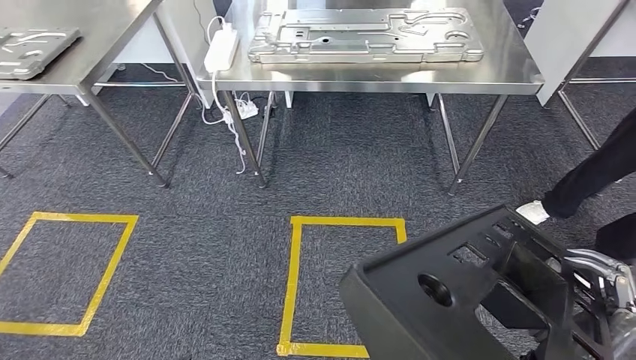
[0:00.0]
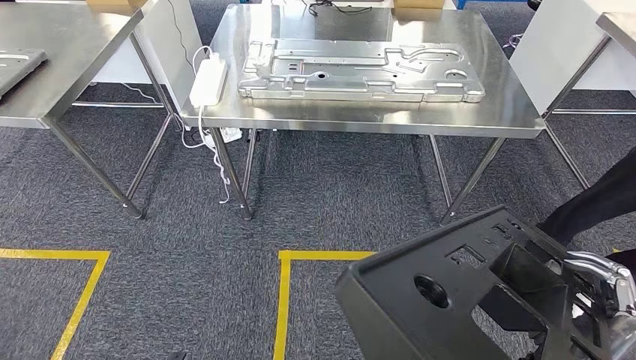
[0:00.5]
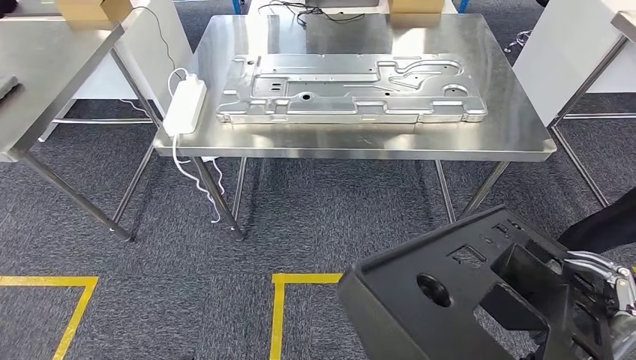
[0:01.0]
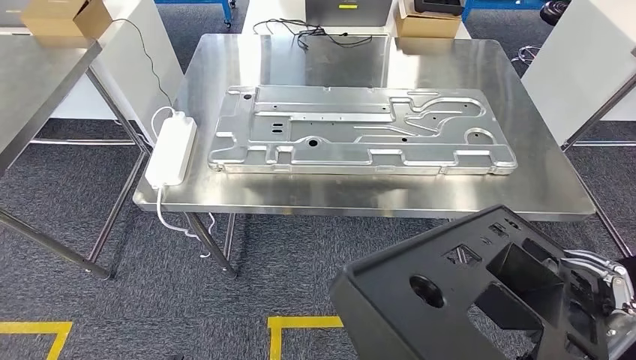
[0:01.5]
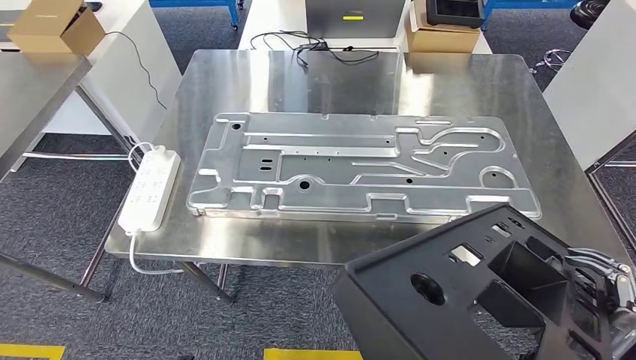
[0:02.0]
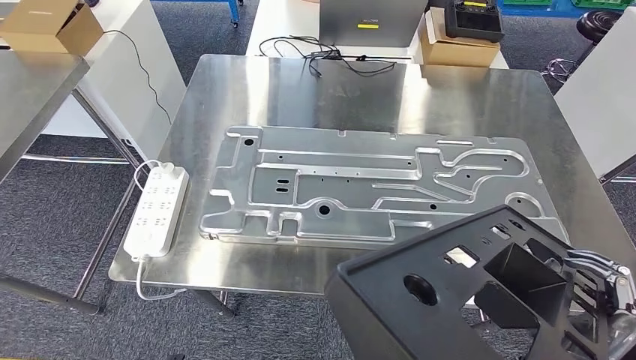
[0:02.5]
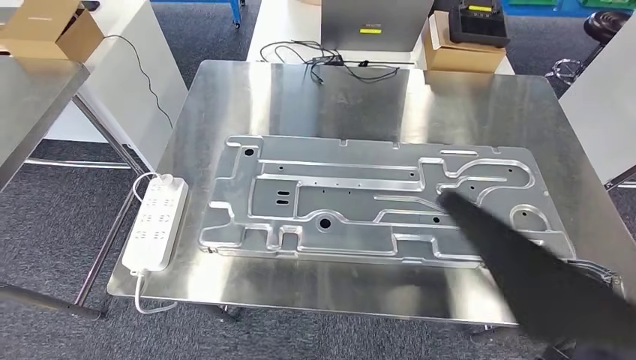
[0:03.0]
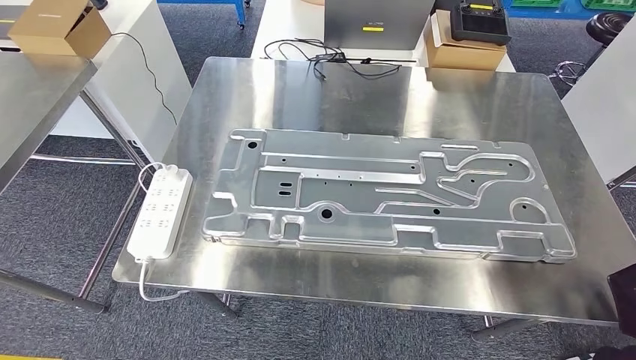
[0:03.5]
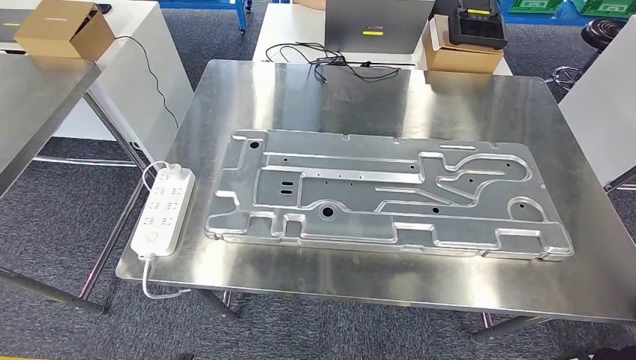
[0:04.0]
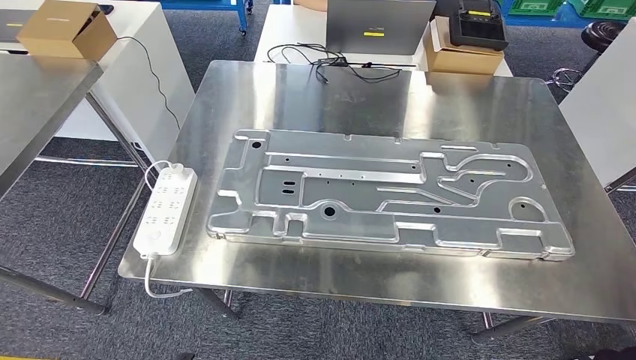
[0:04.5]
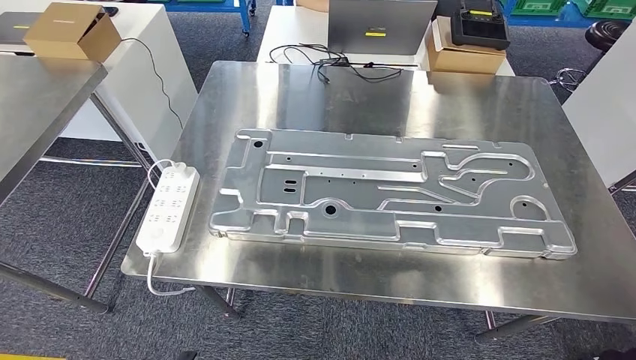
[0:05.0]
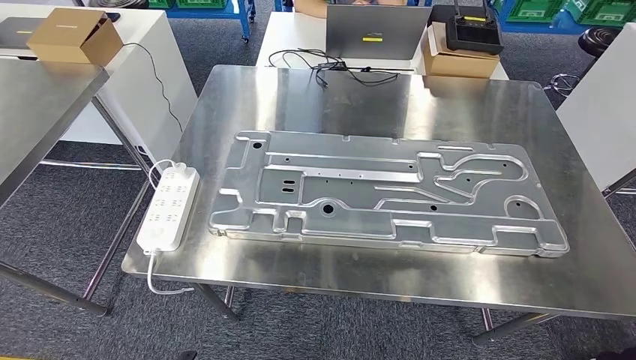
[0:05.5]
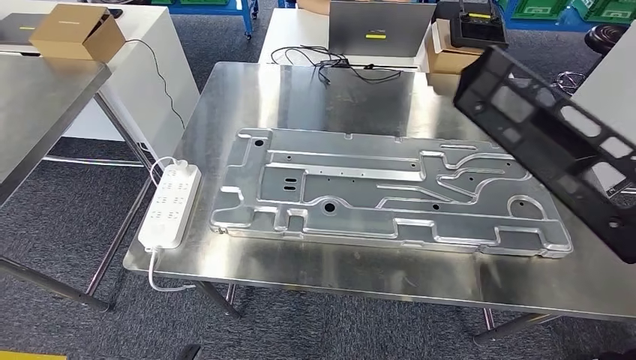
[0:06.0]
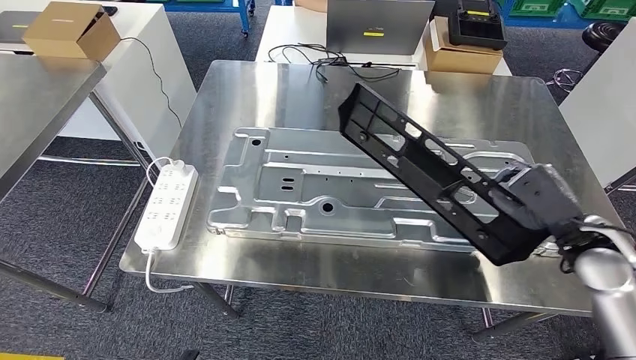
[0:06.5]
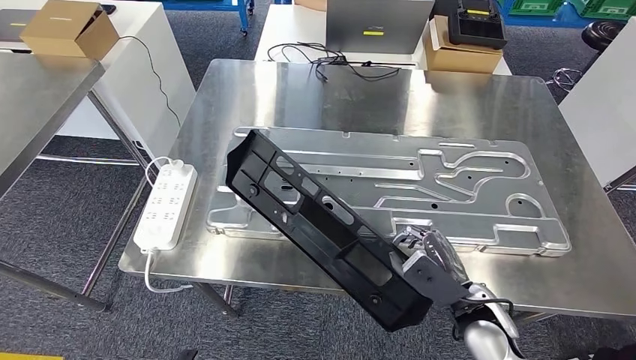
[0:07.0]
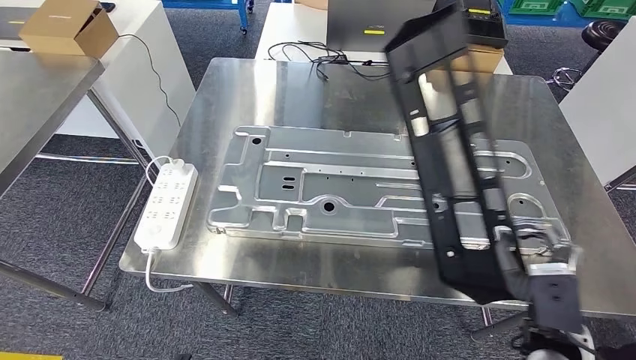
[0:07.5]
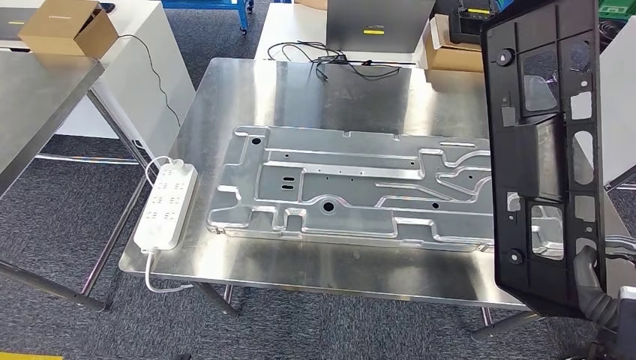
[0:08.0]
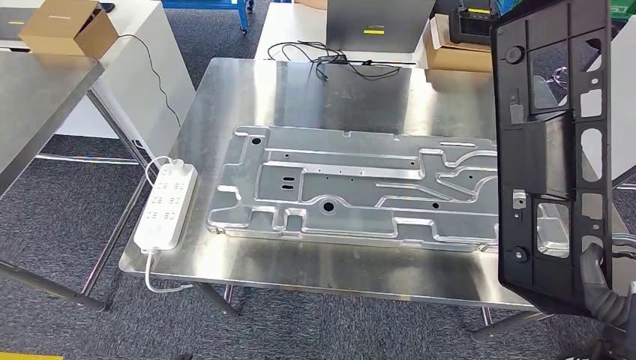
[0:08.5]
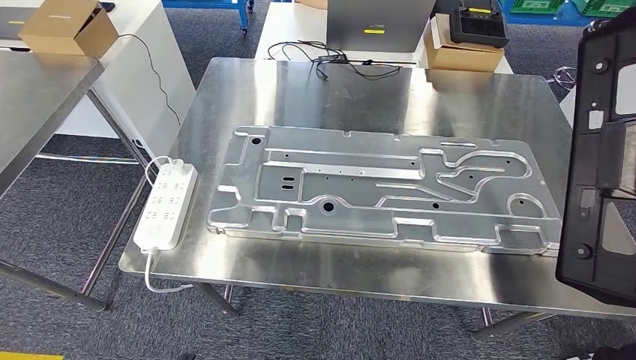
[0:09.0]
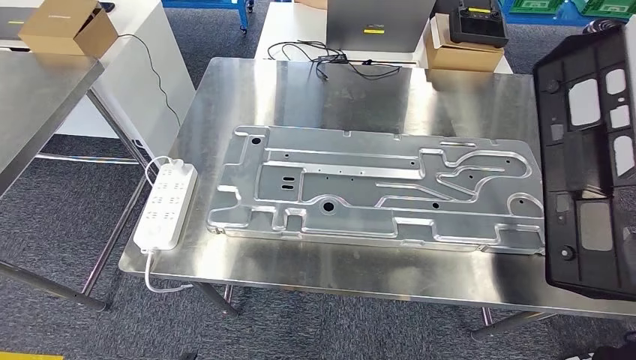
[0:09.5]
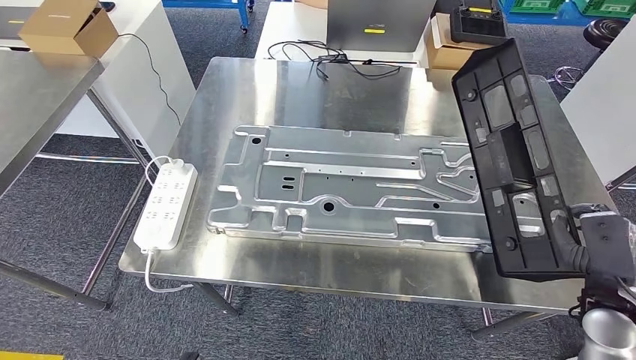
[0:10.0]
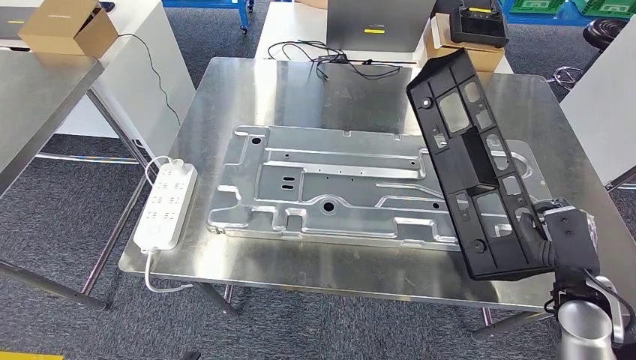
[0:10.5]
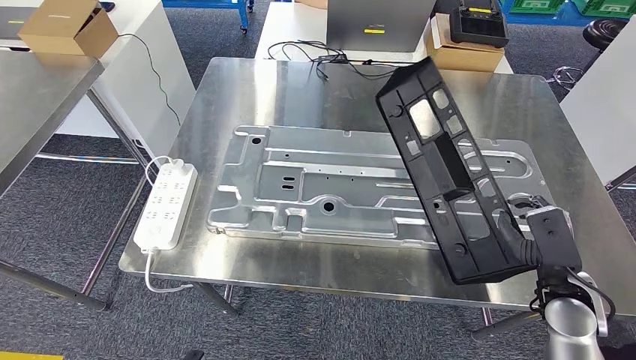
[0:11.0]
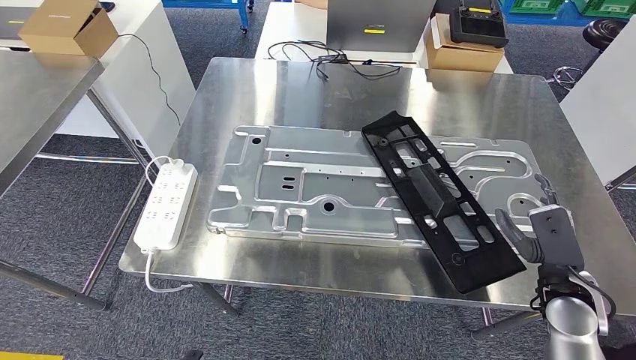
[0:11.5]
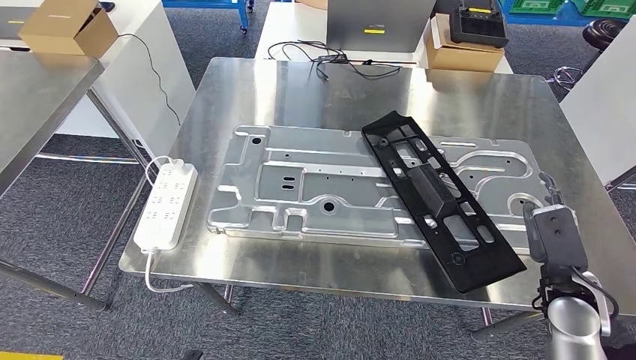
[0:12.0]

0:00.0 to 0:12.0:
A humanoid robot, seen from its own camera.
Step, 0:00.0 to 0:03.0: Move the large material to the workbench.
0:08.0 to 0:10.0: The right hand shifts approximately 10 cm forward.
0:10.0 to 0:12.0: The right hand heads to the left, covering roughly 5 cm.

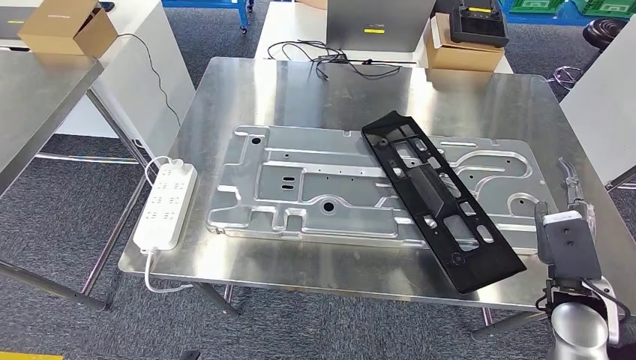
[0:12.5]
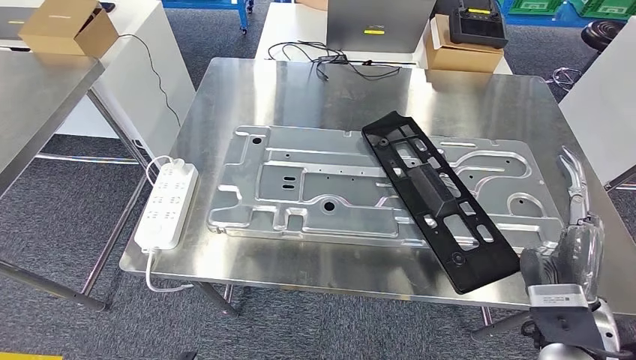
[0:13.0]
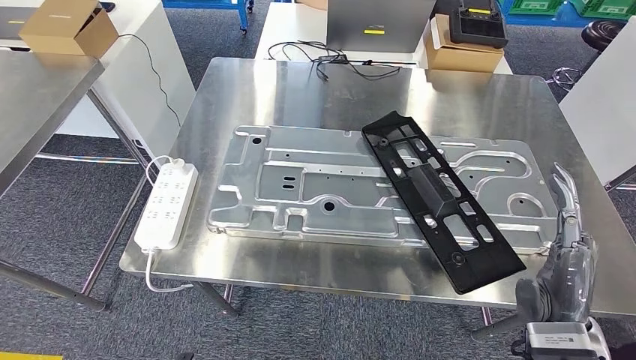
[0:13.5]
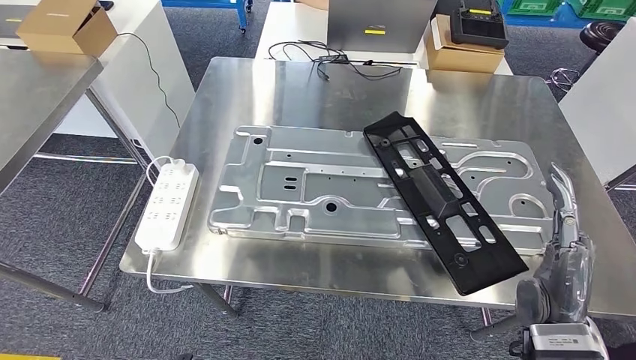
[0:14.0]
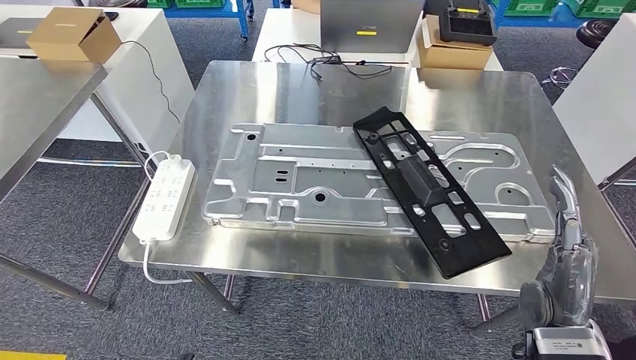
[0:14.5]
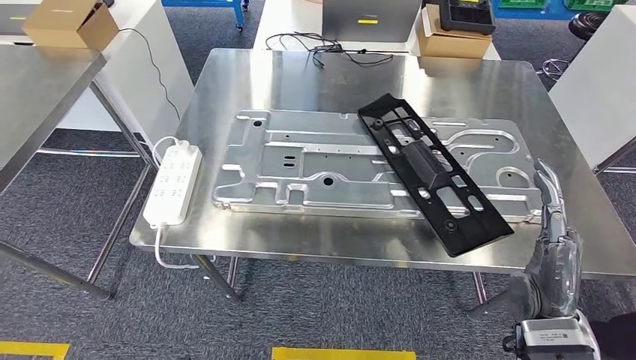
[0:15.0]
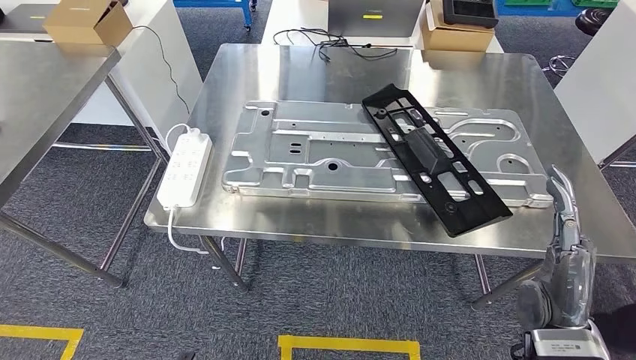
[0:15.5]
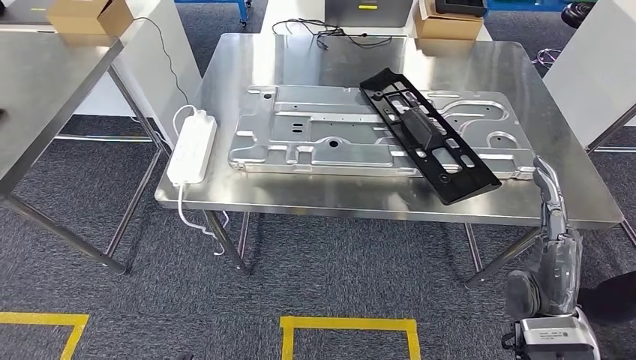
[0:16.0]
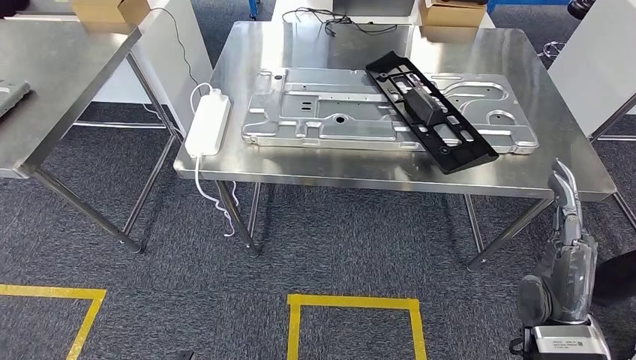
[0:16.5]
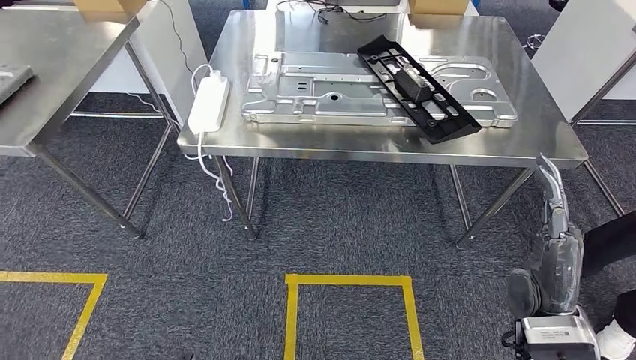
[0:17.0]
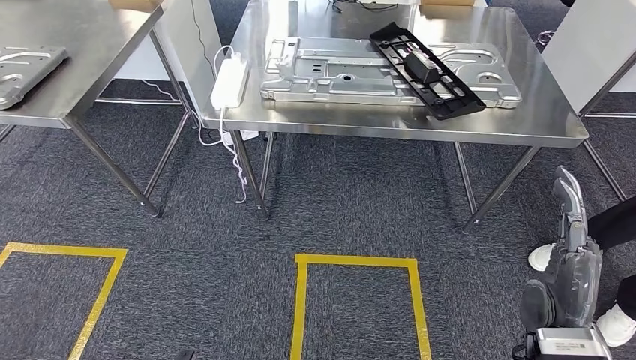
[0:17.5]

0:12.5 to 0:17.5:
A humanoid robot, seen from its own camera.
Step, 0:15.0 to 0:17.5: Move to the initial position of the shelf.

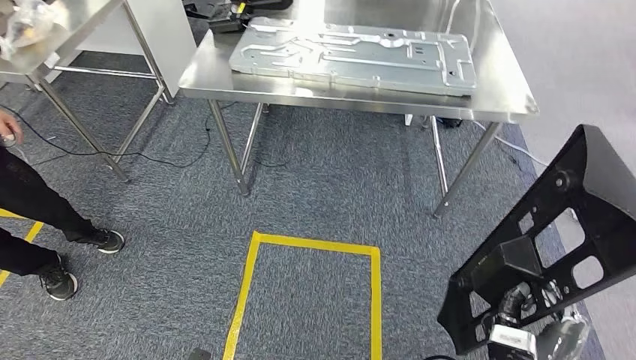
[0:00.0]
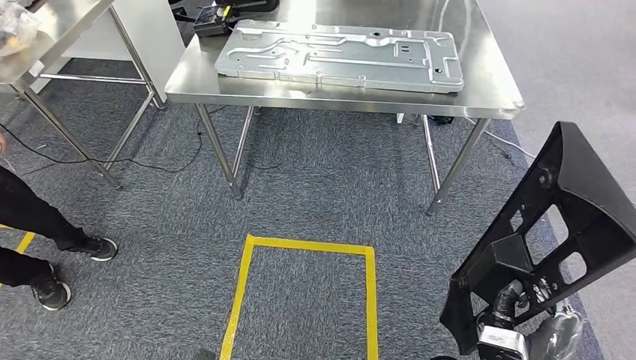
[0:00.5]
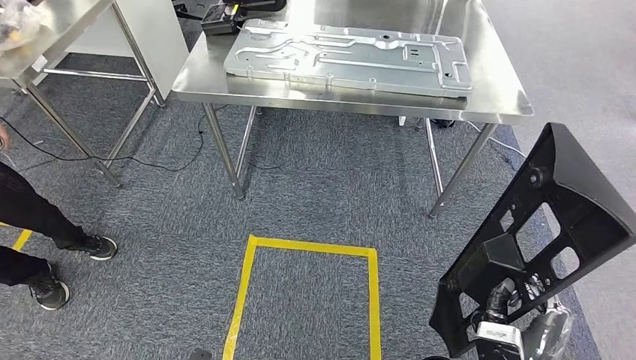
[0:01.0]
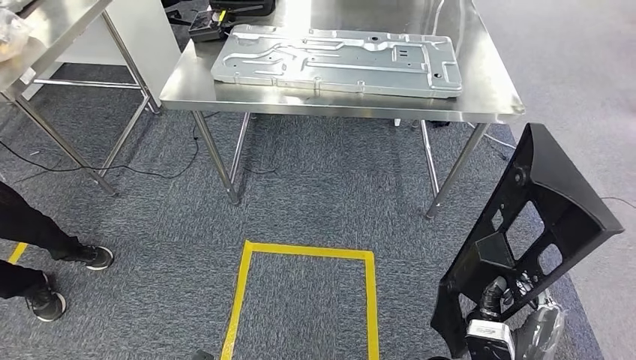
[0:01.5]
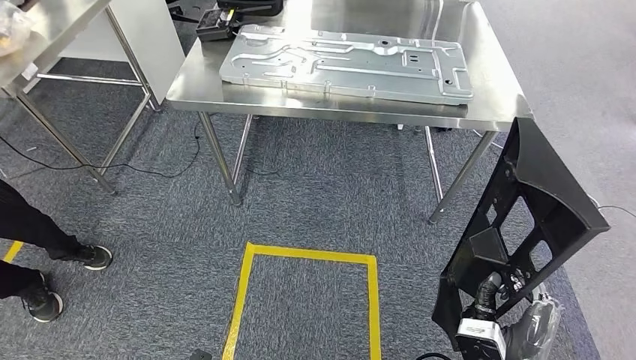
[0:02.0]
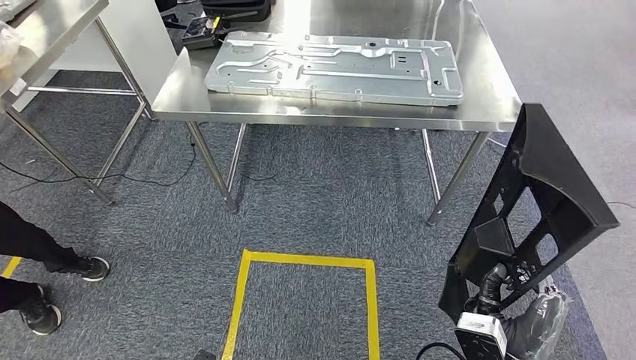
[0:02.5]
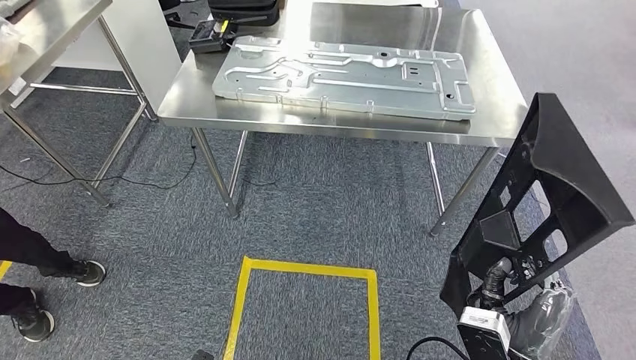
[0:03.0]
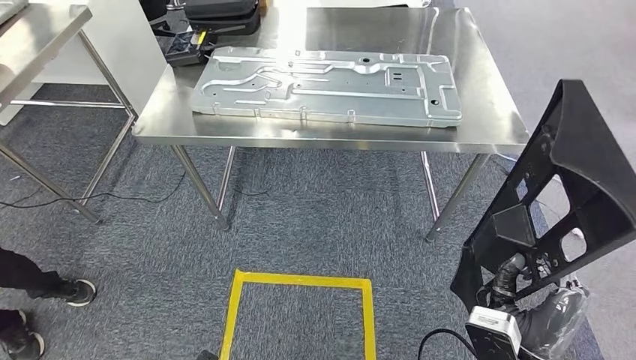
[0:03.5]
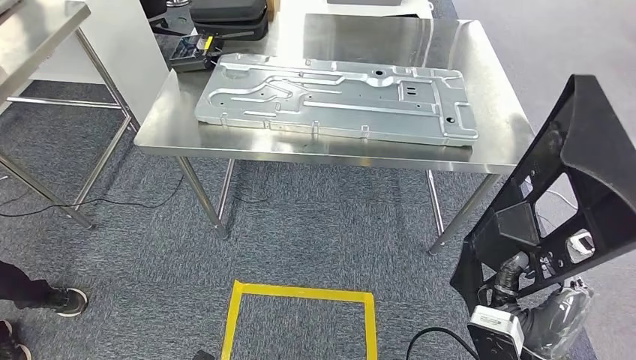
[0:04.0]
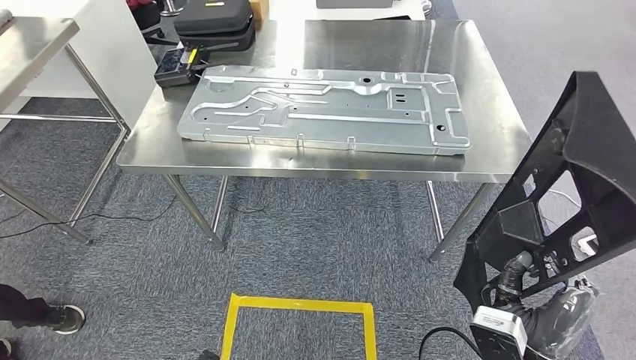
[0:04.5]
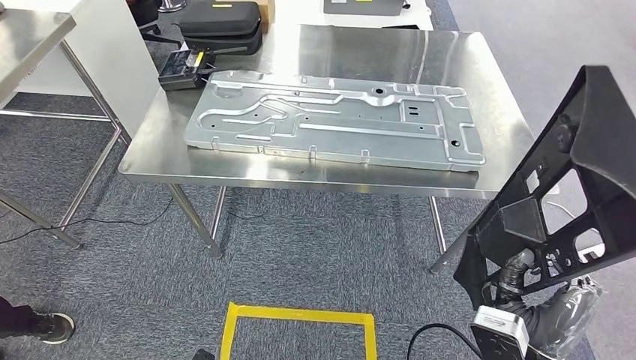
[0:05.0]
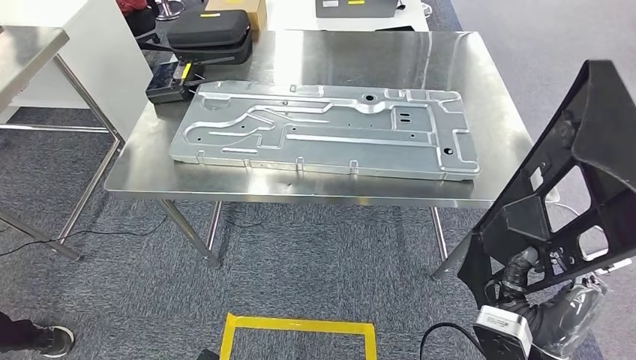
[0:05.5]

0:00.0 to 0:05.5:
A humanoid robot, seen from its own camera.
Step, 0:00.0 to 0:03.5: Move the large material to the workbench.
